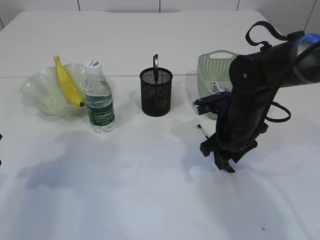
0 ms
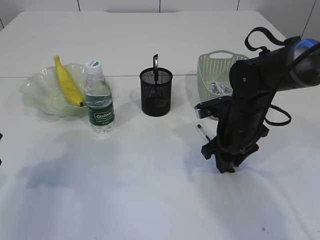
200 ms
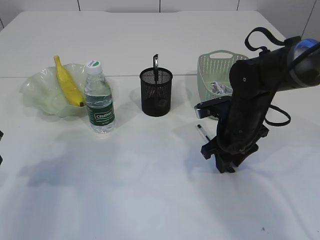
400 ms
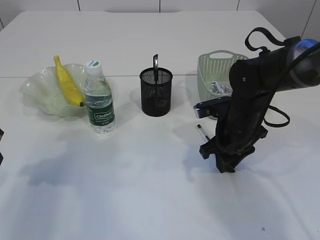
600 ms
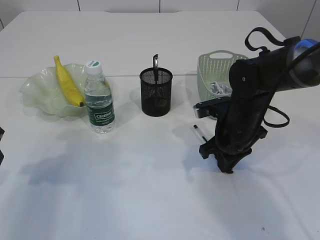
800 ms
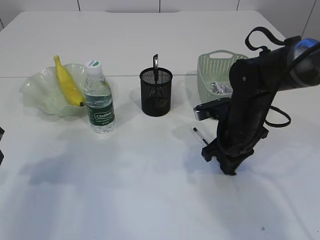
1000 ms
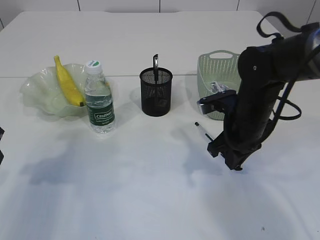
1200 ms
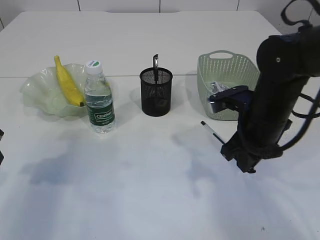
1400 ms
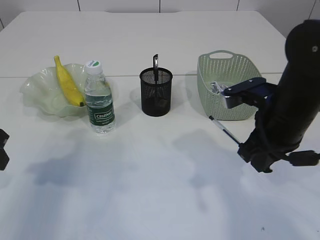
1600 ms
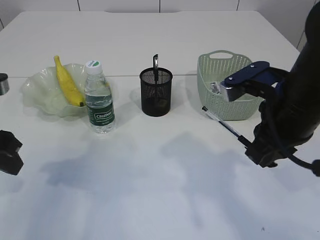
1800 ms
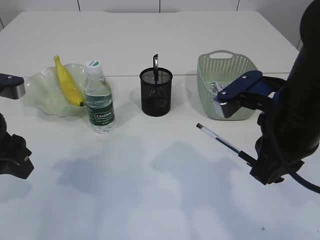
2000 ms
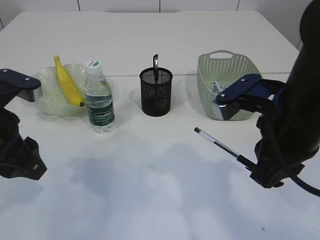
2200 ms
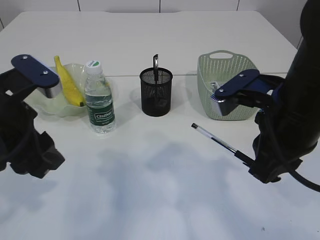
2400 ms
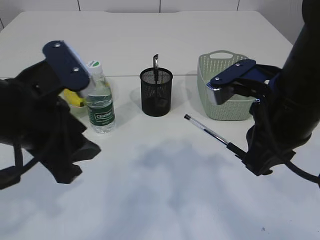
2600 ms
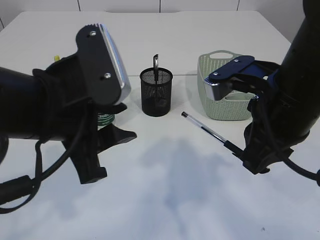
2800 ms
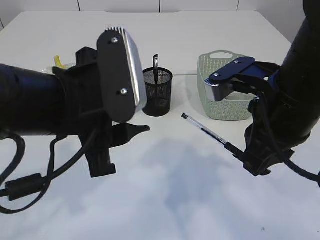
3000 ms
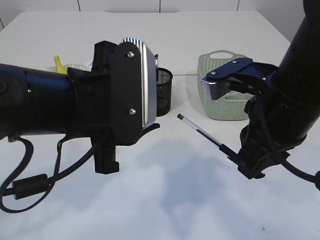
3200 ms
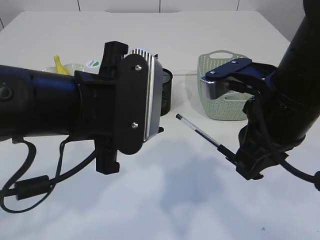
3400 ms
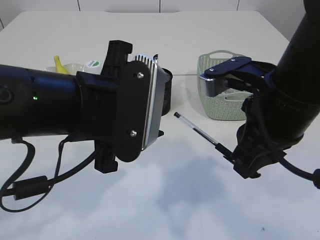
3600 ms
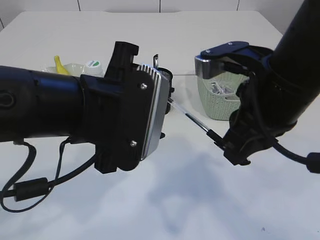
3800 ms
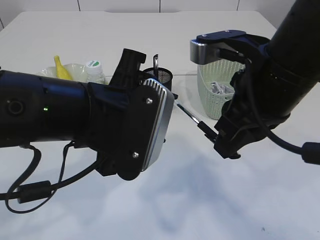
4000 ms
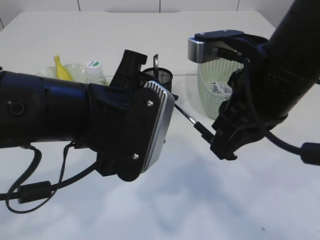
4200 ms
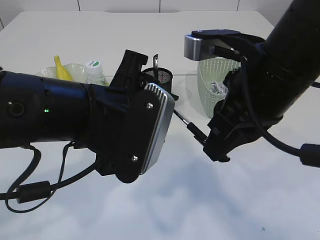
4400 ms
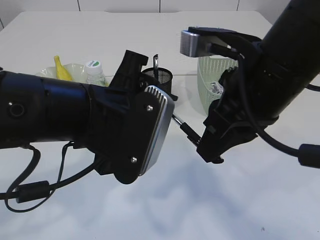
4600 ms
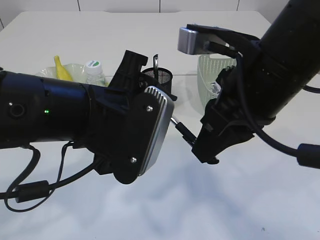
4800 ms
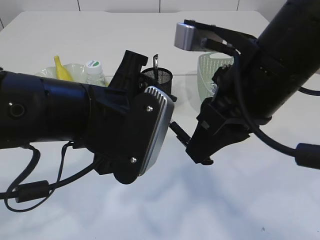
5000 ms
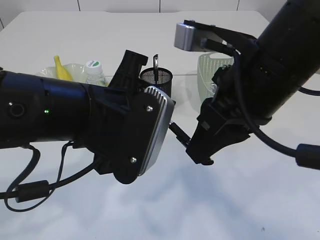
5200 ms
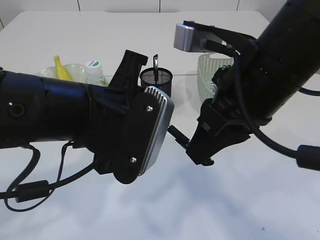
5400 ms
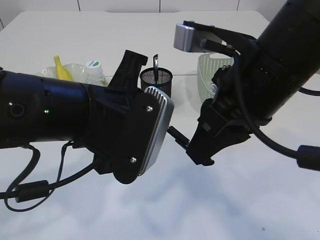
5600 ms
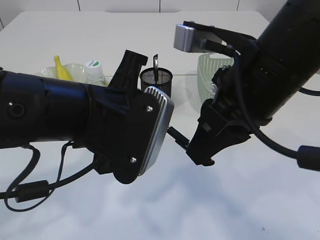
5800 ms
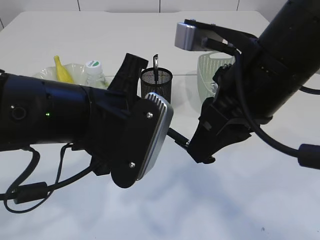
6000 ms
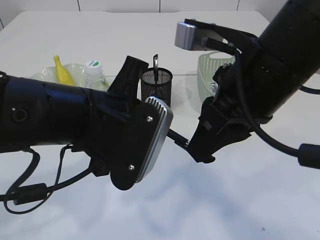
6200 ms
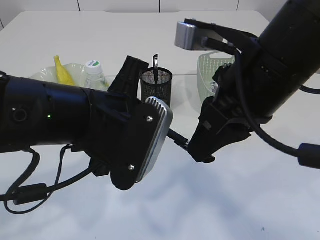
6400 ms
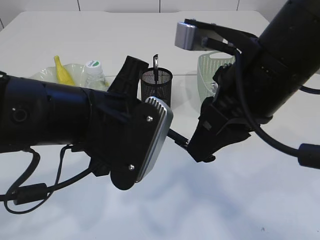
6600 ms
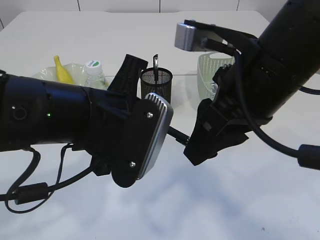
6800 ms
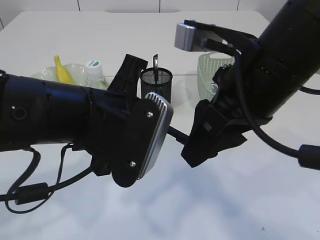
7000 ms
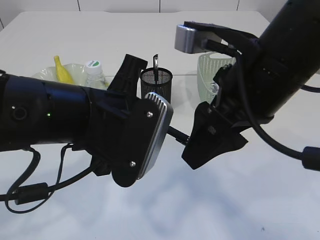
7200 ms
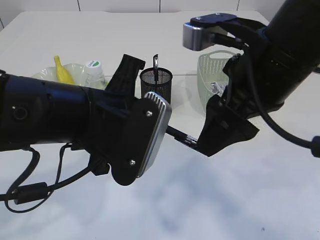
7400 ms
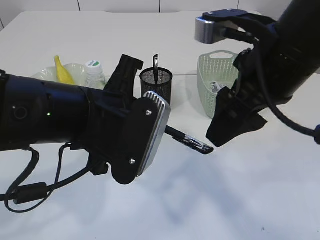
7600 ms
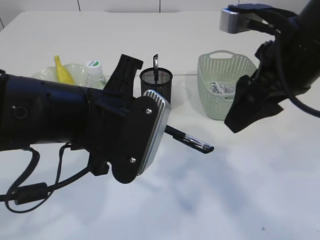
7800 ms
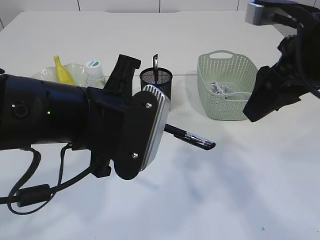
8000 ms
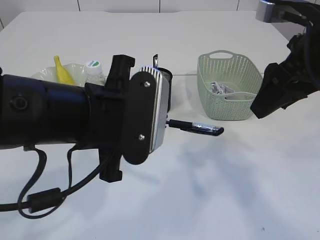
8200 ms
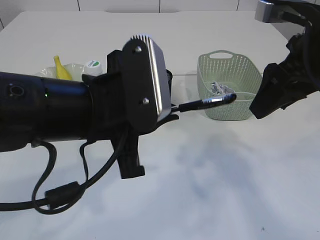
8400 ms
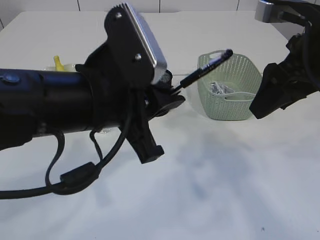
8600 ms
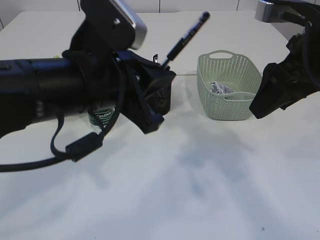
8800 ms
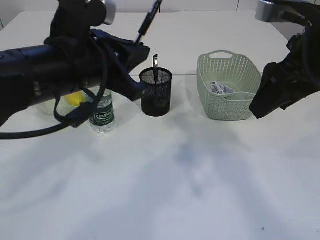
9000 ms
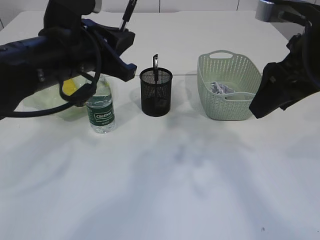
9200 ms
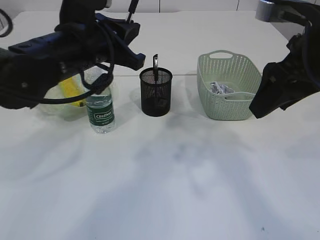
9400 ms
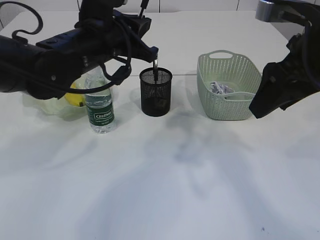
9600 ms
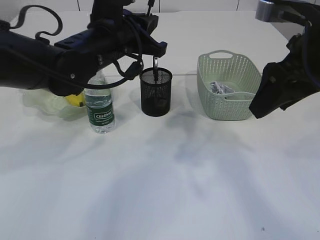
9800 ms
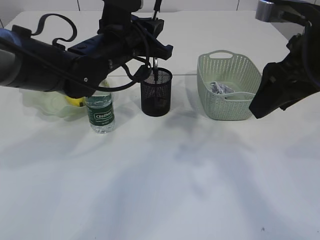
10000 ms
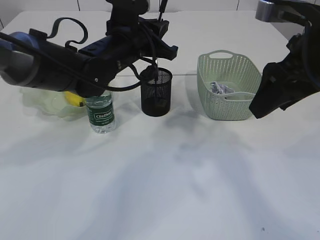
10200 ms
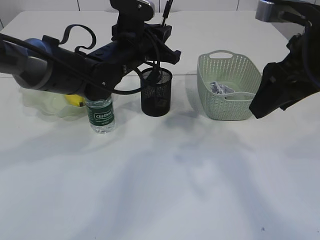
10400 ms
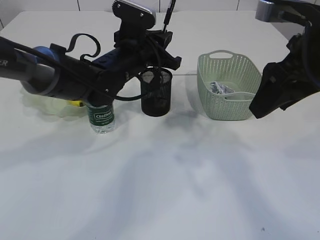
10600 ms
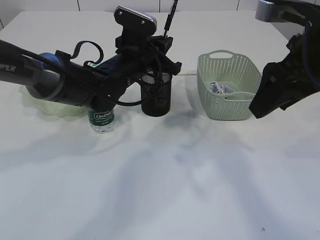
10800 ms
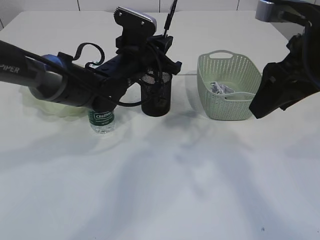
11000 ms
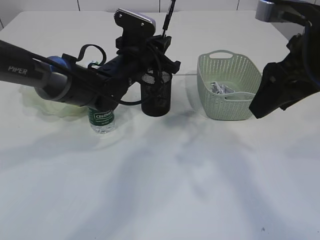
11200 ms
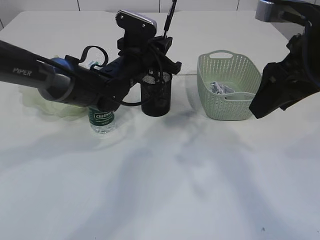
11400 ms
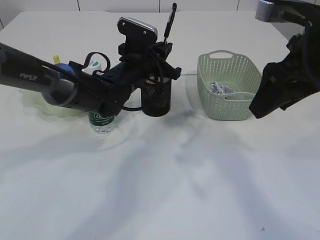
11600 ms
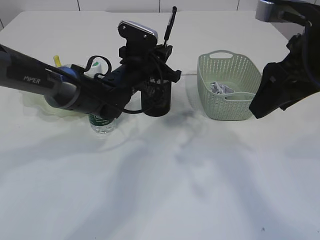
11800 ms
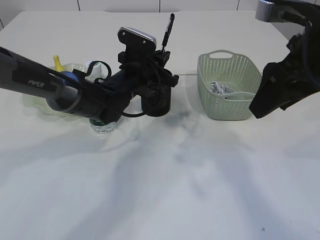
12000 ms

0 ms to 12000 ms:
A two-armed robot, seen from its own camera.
Step, 0 ms to 2000 ms: Pick up the pen with left arm.
Step, 2200 ms to 7600 ms: transfer the pen to the left arm.
0 ms to 1600 ms: The right gripper moves upward and backward, approximately 10 cm, and closes up.
1600 ms to 3000 ms: The right gripper heads upward and backward, covering approximately 10 cm; the left gripper goes roughly 20 cm to the right.
4400 ms to 6000 ms: The left gripper closes.
6000 ms to 7600 ms: The right gripper opens up.
7600 ms to 9000 ms: The right gripper moves to the right, roughly 5 cm, while the left gripper changes place by about 5 cm.
9000 ms to 10400 ms: The left gripper shifts approximately 15 cm forward.
10400 ms to 12000 ms: The left gripper goes roughly 5 cm downward.

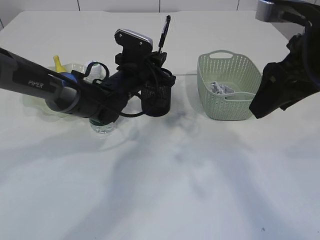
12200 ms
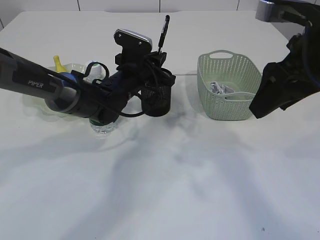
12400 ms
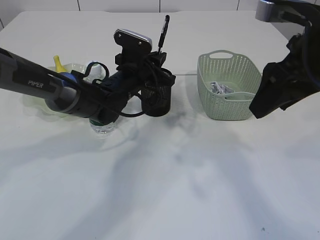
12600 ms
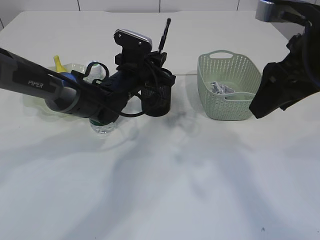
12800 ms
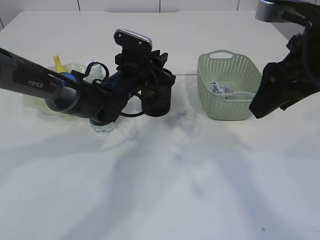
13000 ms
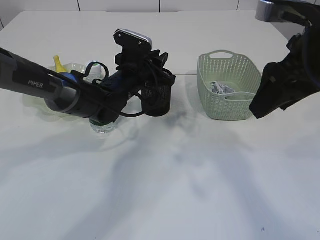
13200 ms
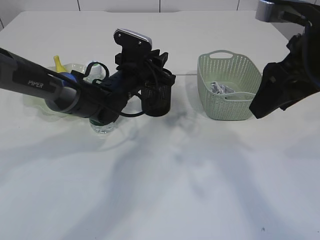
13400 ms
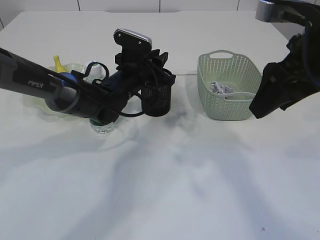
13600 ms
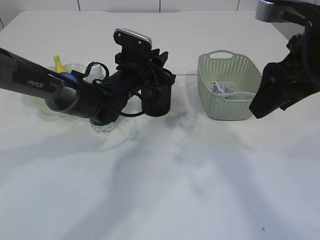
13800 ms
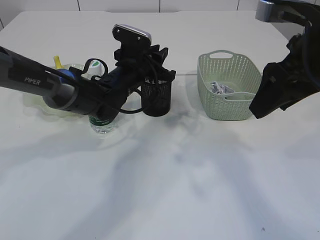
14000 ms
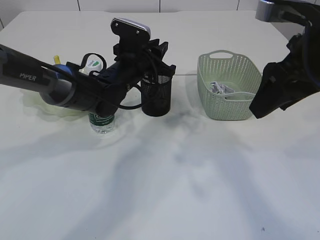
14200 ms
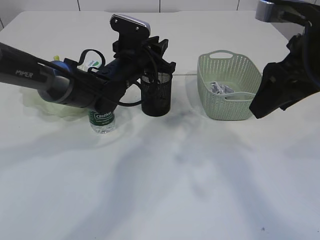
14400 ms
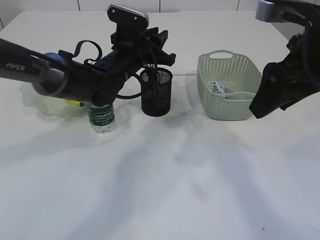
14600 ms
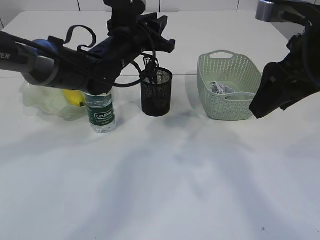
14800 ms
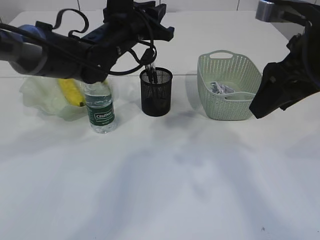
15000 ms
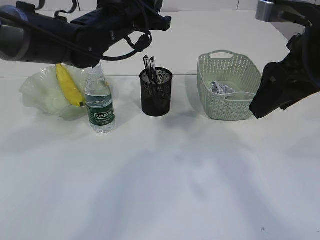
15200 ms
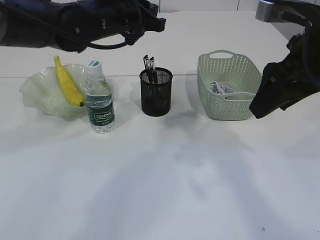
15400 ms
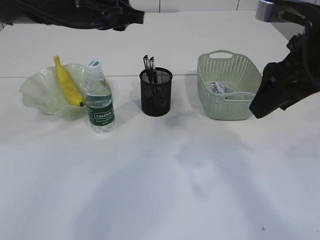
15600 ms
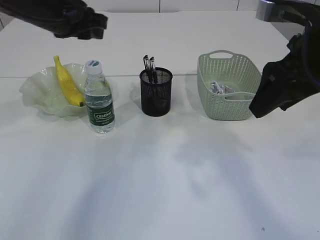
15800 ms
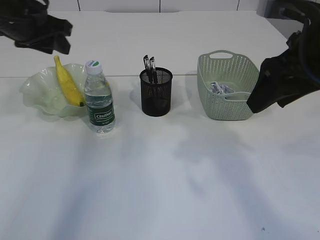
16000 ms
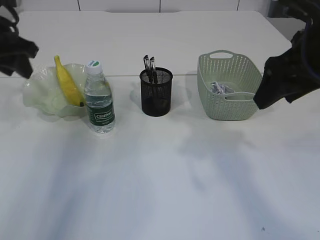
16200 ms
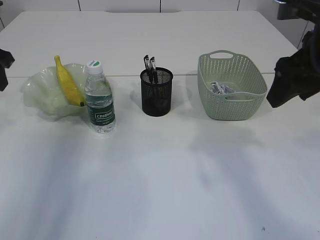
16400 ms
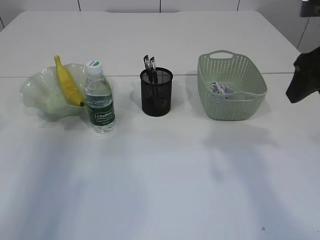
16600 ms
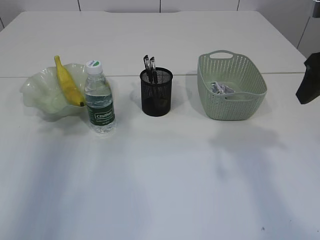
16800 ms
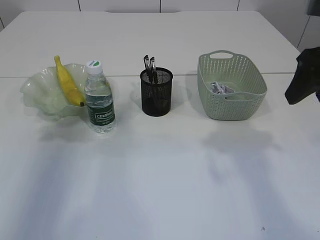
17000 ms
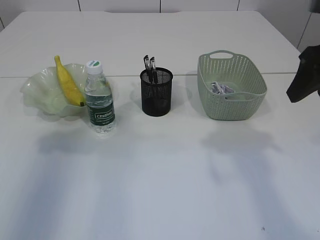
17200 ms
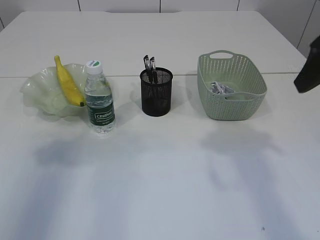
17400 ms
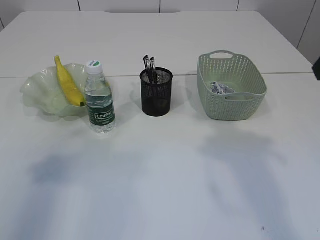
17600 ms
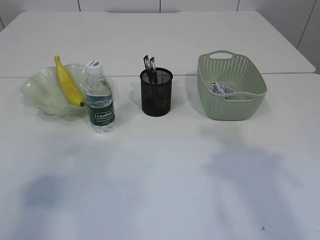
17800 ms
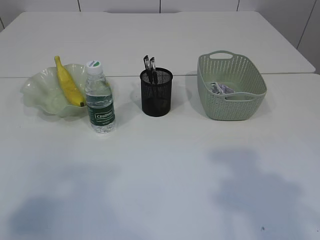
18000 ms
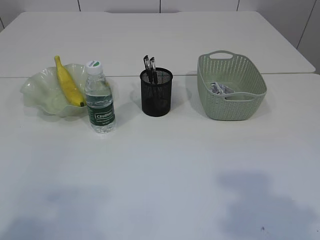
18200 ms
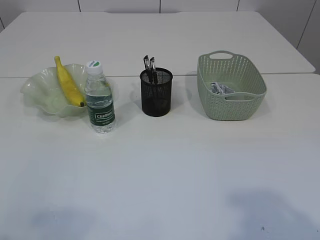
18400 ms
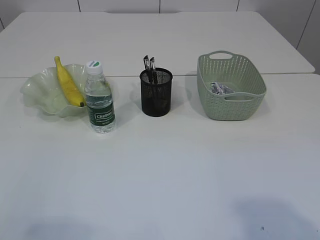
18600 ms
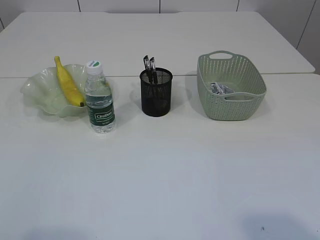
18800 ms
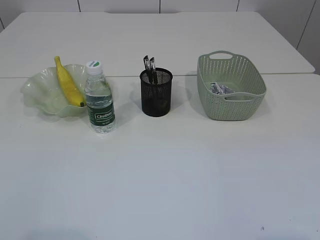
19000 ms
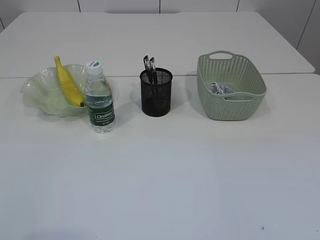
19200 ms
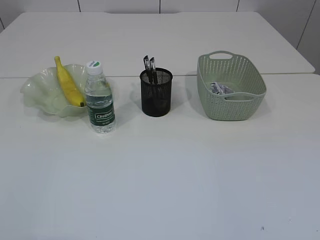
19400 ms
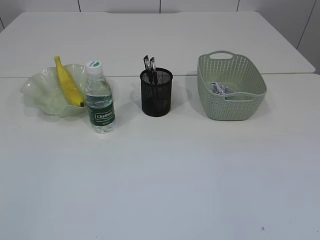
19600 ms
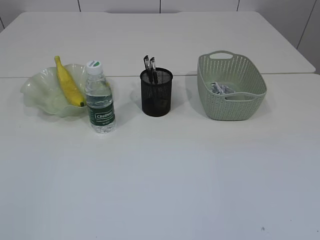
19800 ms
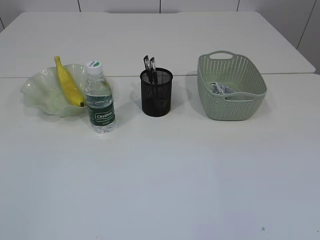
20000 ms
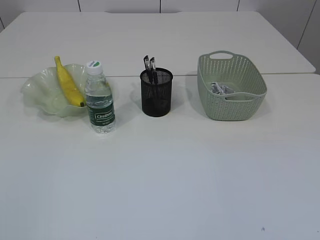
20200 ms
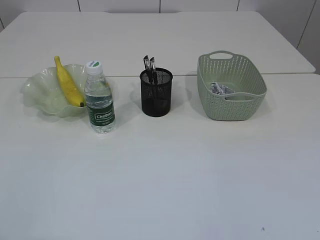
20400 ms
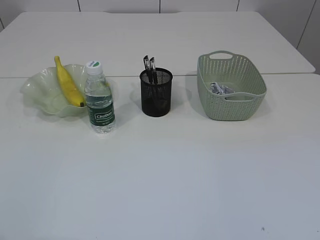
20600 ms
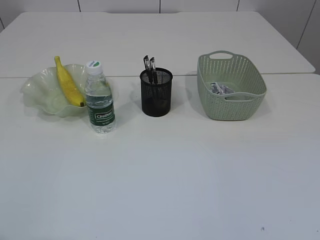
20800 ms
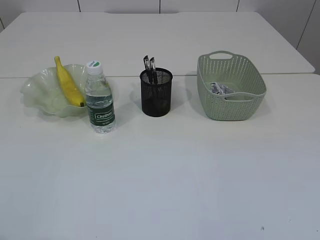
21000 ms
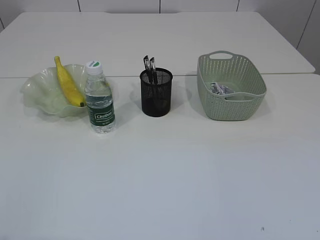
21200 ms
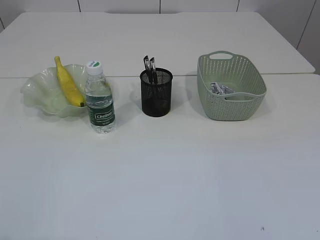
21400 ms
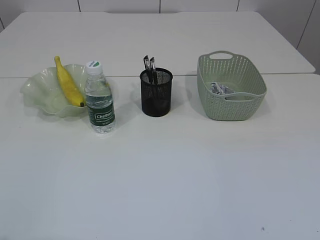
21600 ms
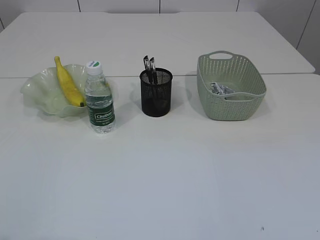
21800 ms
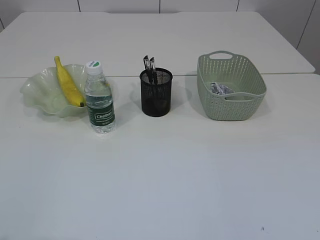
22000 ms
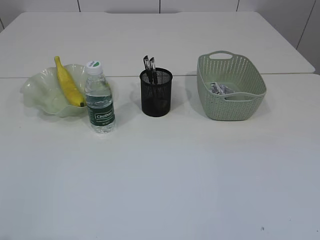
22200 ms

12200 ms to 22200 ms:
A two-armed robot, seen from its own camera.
Step, 12200 ms to 14400 ms: Place the pen into the pen holder.
12200 ms to 13600 ms: Both grippers stay about where they are.
13600 ms to 15000 ms: The left gripper heads upward, covering roughly 10 cm.
15000 ms to 16400 ms: The left gripper is displaced to the left by about 25 cm.
16400 ms to 18000 ms: The right gripper goes about 15 cm backward. Meanwhile the left gripper goes roughly 25 cm backward.
18000 ms to 19400 ms: The left gripper is displaced backward and downward by some 10 cm.
20800 ms to 22200 ms: Both grippers stay about where they are.
